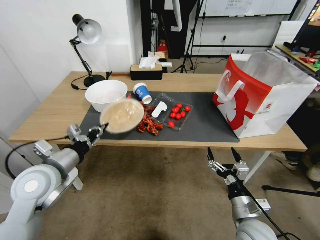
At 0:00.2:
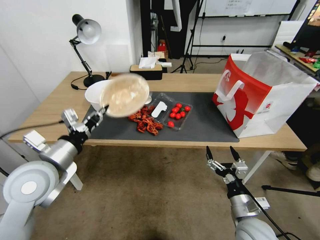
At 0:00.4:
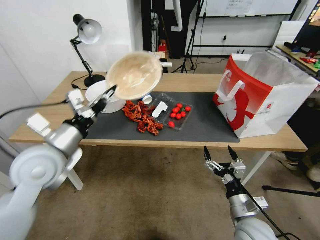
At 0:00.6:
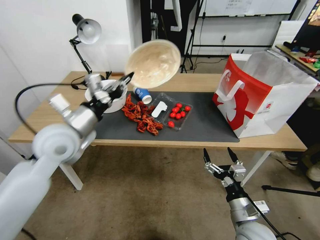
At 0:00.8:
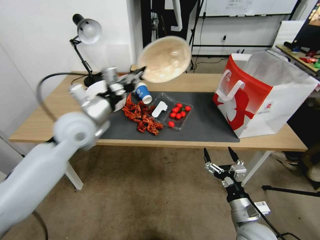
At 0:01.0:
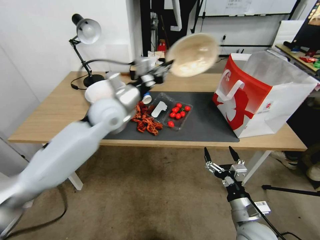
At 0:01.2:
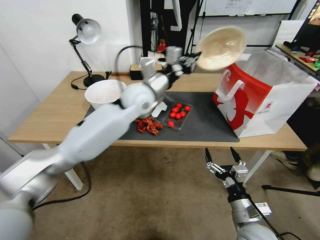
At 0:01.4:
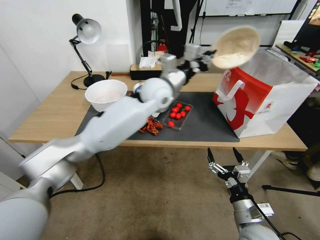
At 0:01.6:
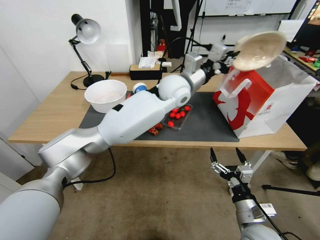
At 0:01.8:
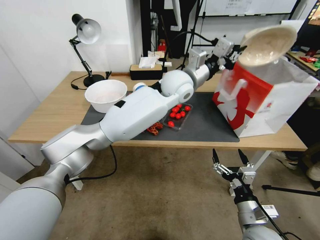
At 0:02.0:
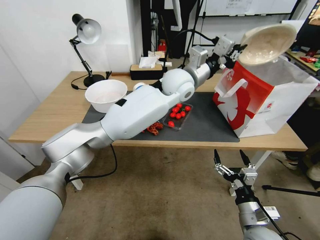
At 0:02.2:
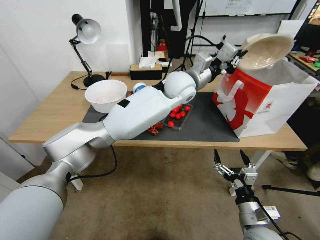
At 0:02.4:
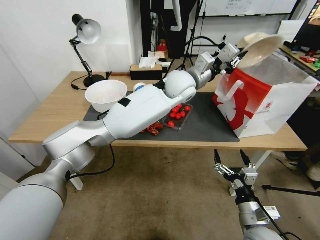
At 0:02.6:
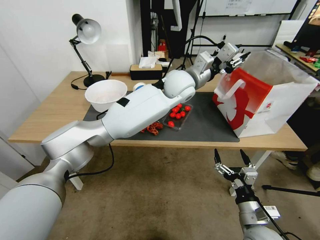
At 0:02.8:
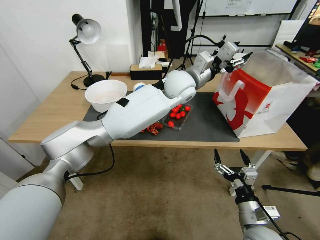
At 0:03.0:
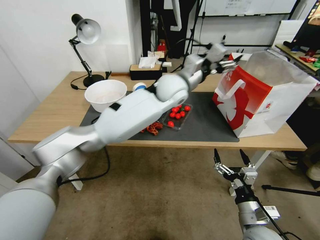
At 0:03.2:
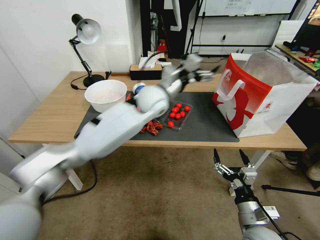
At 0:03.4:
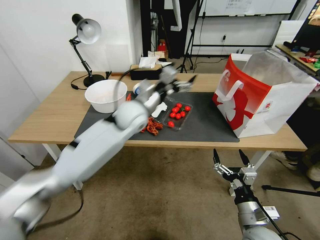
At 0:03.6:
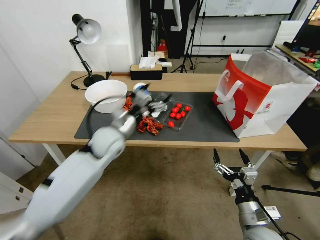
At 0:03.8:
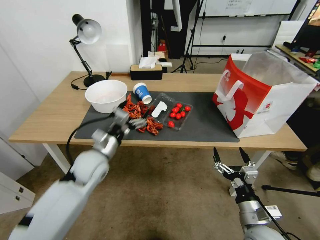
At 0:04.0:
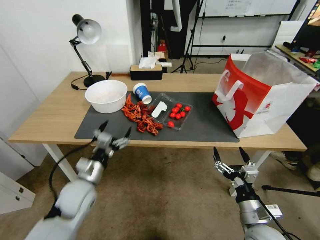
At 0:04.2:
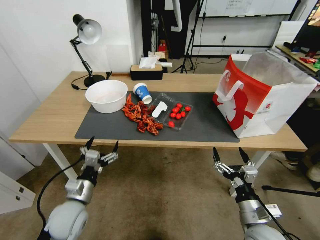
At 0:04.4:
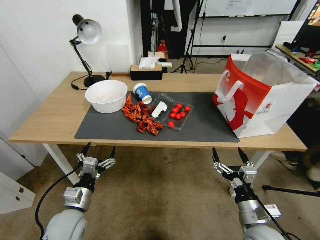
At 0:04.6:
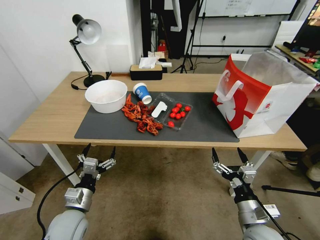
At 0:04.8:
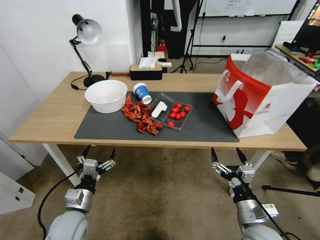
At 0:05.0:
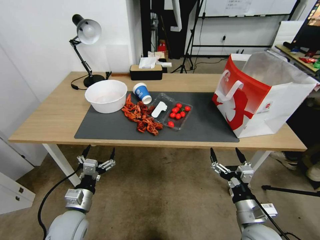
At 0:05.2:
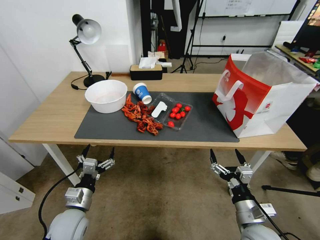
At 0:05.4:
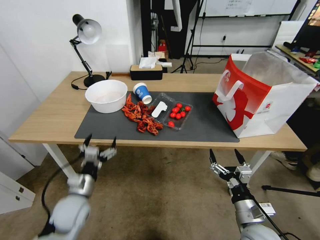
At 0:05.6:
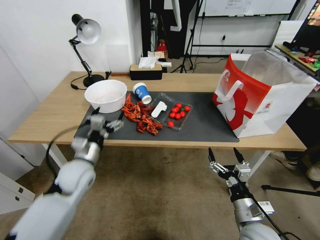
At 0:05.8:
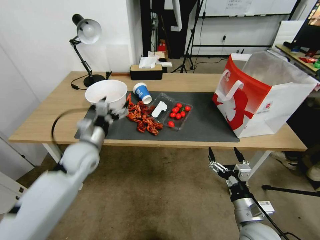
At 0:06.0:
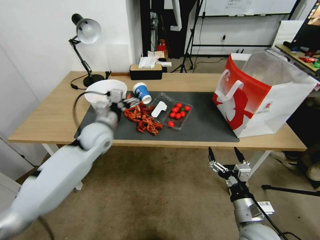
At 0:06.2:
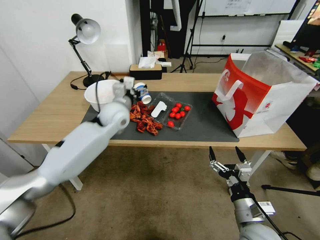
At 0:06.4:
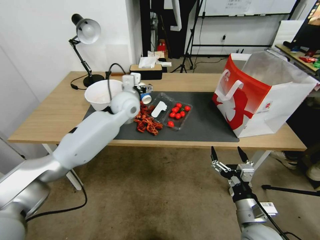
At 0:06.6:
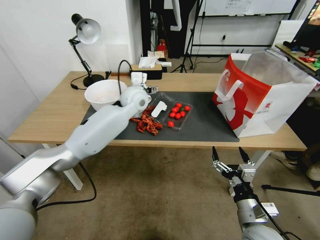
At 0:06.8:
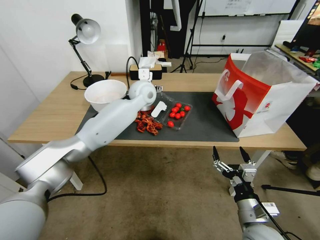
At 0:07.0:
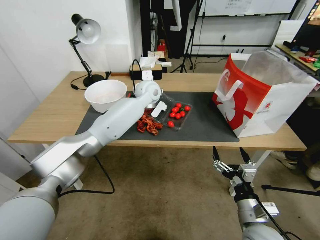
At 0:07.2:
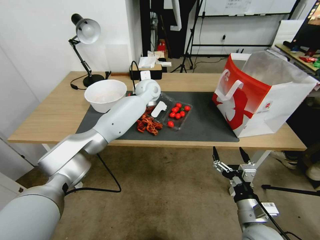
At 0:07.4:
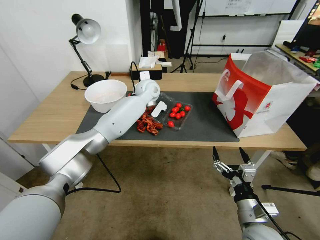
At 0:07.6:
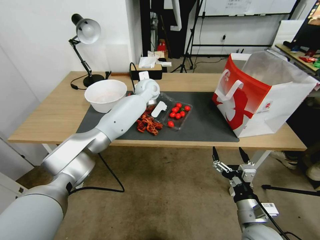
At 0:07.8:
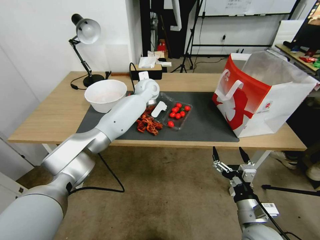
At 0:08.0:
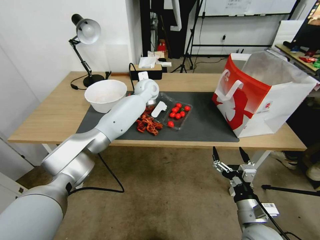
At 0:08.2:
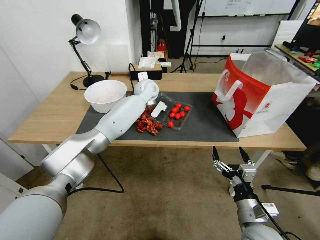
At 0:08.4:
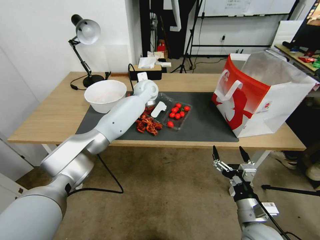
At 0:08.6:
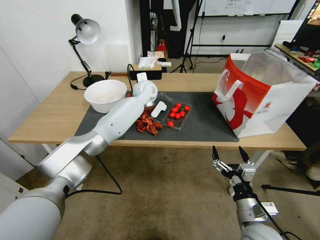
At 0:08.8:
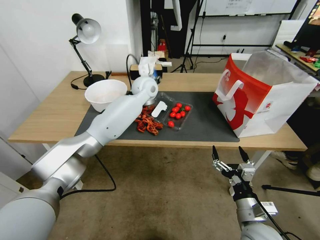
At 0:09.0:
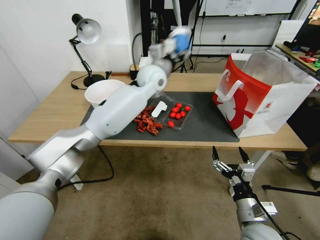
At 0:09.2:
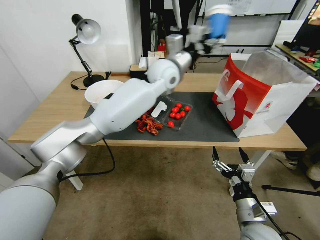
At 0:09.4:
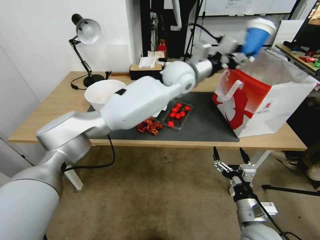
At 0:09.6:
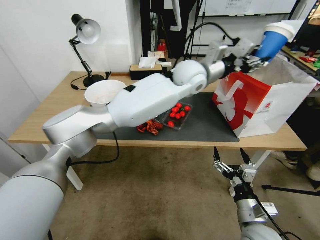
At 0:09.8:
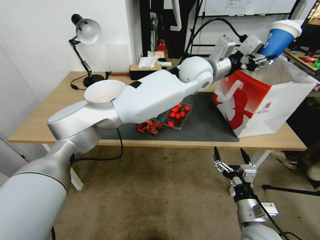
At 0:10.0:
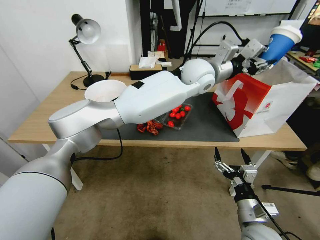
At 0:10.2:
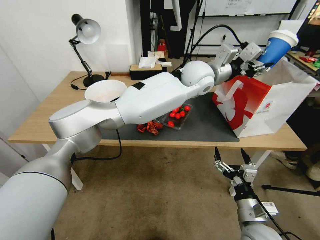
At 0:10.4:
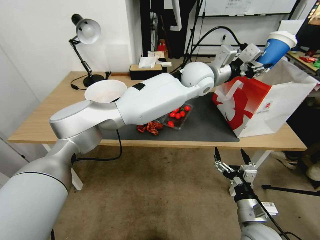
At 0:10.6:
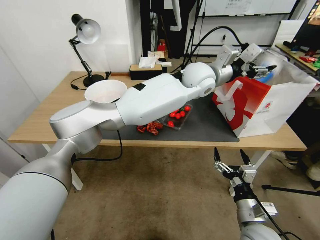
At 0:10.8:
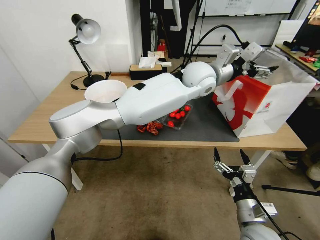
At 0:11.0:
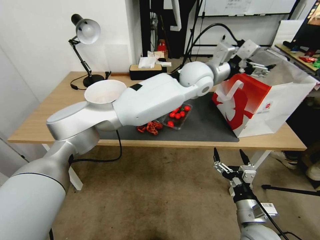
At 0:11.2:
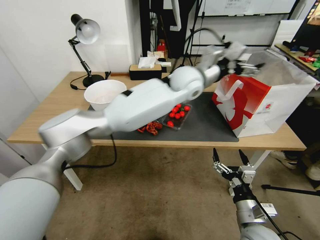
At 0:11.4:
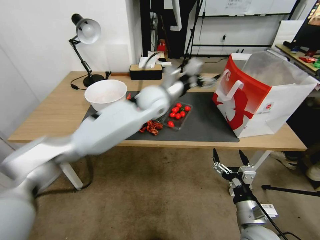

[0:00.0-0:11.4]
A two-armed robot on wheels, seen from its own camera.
0:00.0 to 0:01.4: The left gripper moves to the right and forward, roughly 40 cm.
0:01.4 to 0:02.8: The left gripper ends up roughly 5 cm from where it was, and opens up.
0:02.8 to 0:04.2: The left gripper goes some 50 cm to the left, backward and downward, and opens.
0:04.2 to 0:05.6: The left gripper moves forward and upward, about 10 cm.
0:05.6 to 0:07.2: The left gripper heads forward, to the right and upward, covering some 40 cm.
0:07.2 to 0:08.6: The left gripper closes its fingers.
0:08.6 to 0:10.0: The left gripper travels to the right, upward and backward by about 25 cm.
0:10.0 to 0:11.4: The left gripper goes about 15 cm to the left and downward, and opens its fingers.

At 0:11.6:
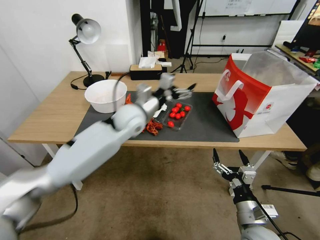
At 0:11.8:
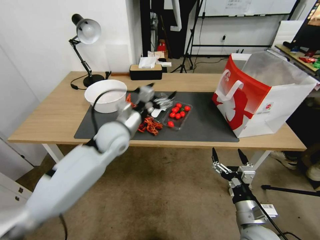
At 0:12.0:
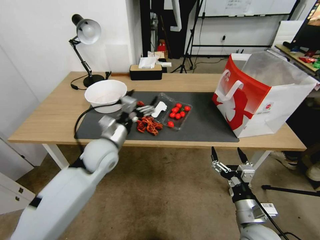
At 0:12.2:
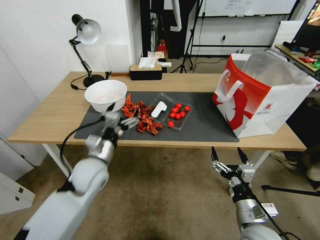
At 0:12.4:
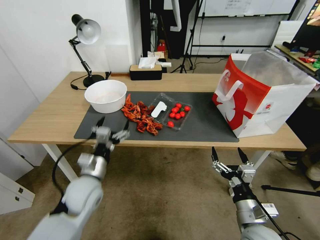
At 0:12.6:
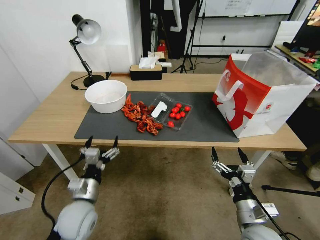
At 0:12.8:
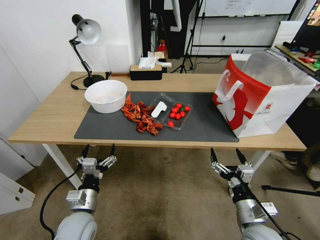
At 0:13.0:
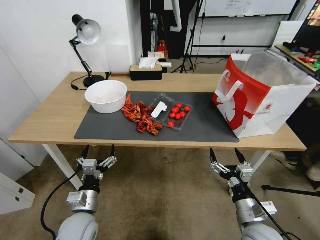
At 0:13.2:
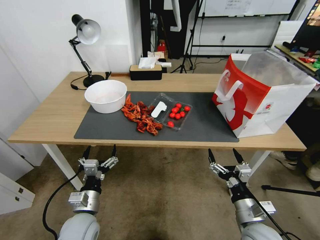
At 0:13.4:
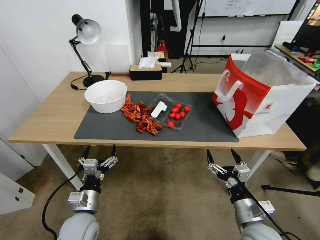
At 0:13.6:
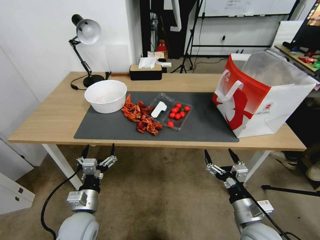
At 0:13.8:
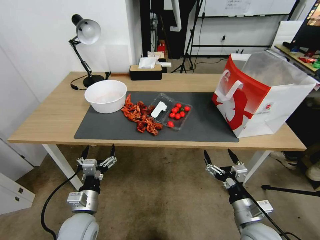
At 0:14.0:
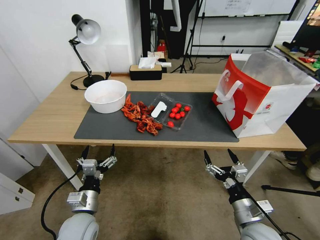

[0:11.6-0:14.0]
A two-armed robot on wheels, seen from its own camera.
0:11.6 to 0:12.8: The left gripper heads backward, downward and to the left, covering some 35 cm.
0:12.8 to 0:14.0: The grippers move only a little.
